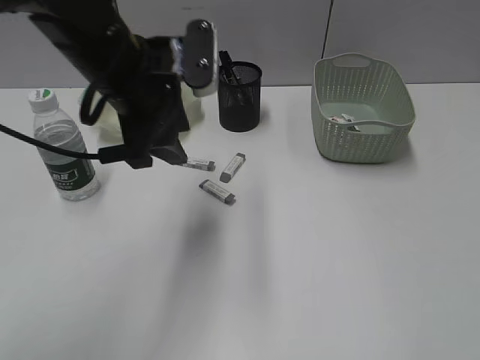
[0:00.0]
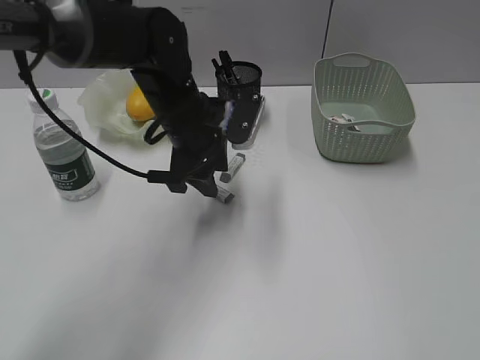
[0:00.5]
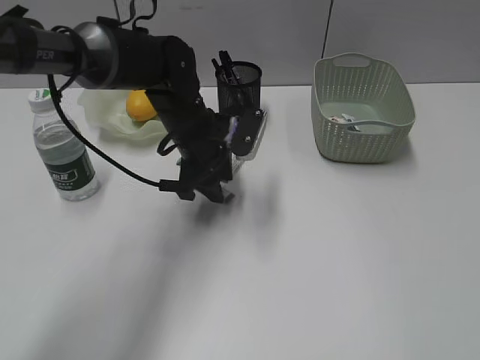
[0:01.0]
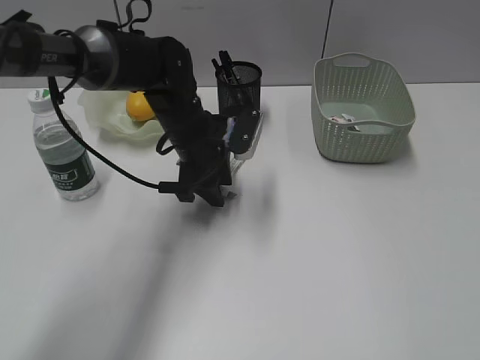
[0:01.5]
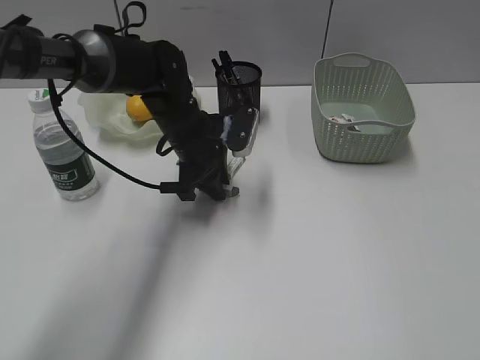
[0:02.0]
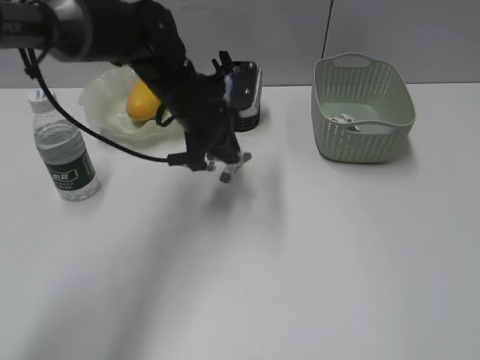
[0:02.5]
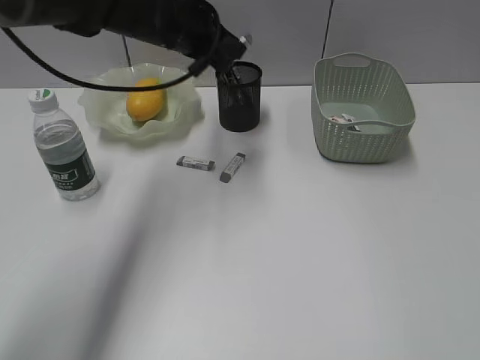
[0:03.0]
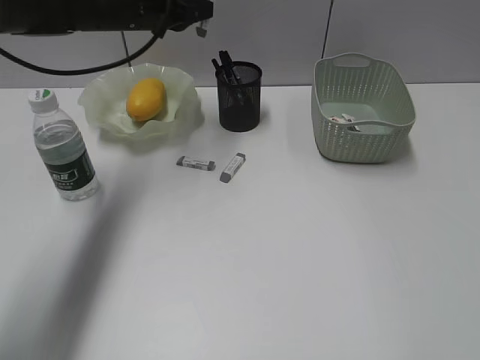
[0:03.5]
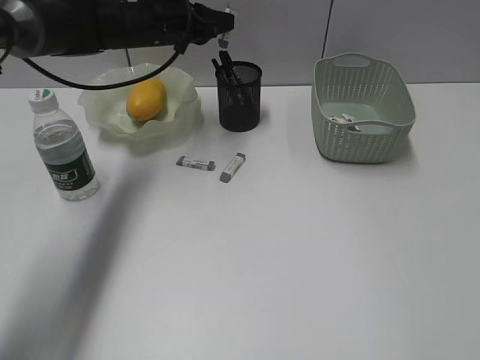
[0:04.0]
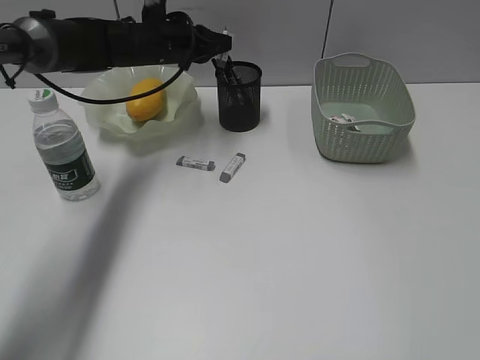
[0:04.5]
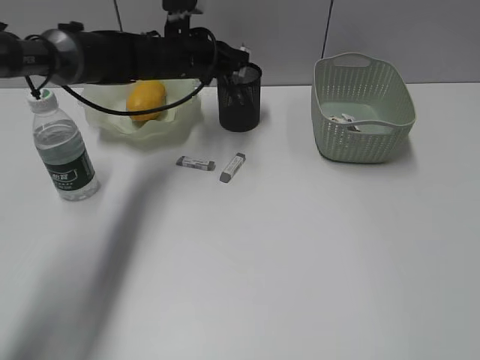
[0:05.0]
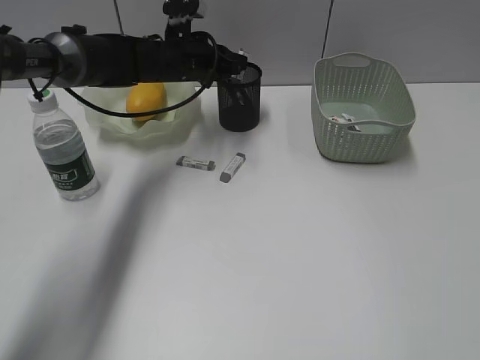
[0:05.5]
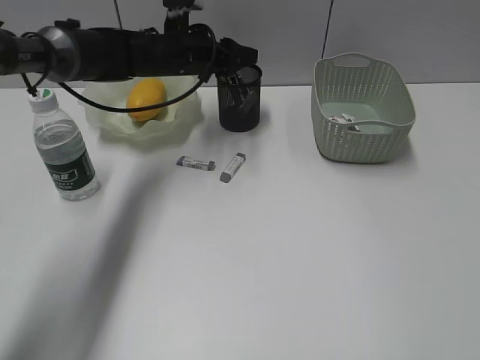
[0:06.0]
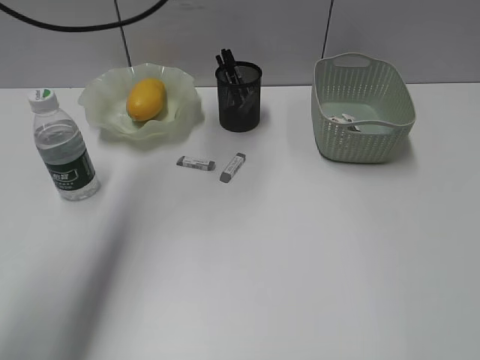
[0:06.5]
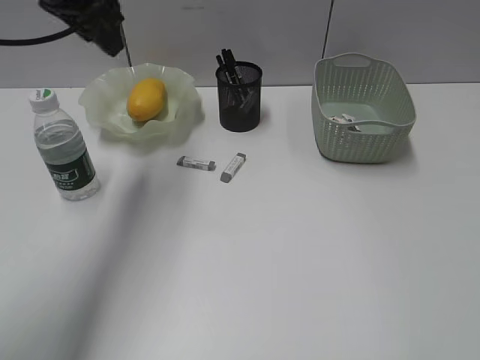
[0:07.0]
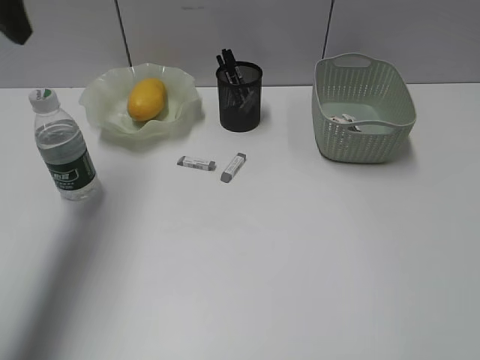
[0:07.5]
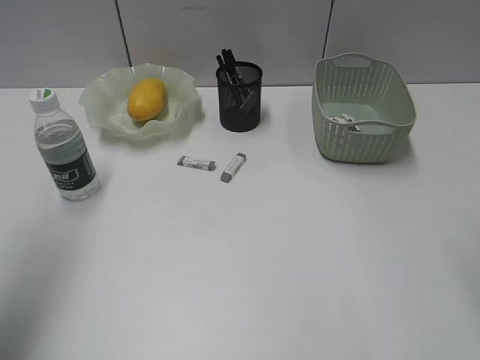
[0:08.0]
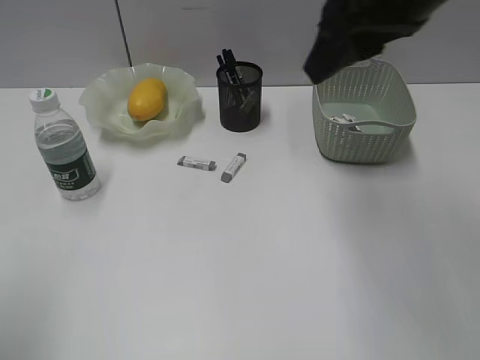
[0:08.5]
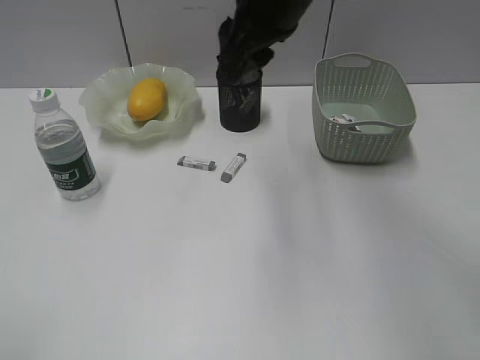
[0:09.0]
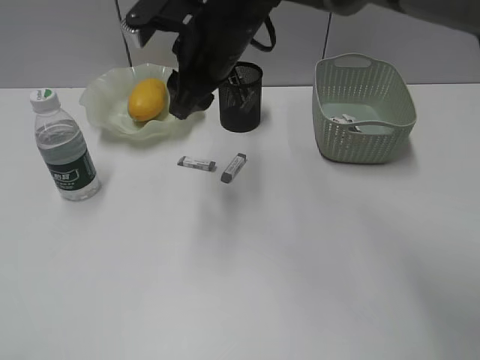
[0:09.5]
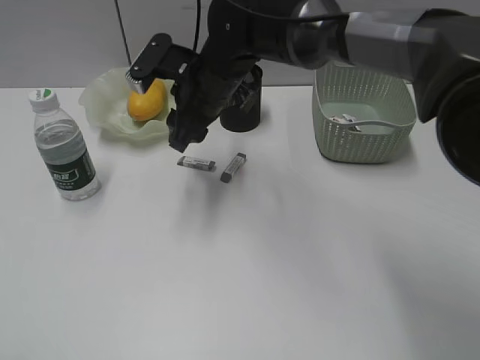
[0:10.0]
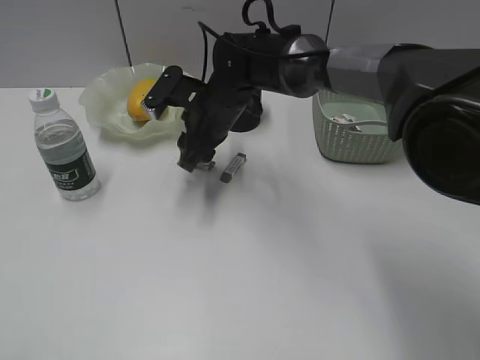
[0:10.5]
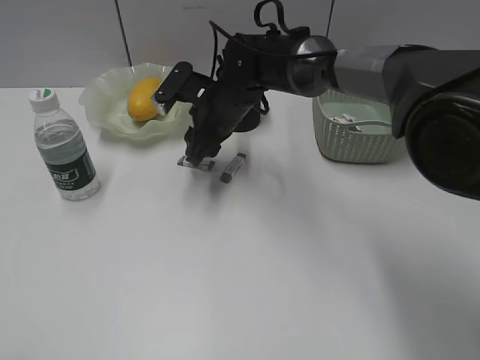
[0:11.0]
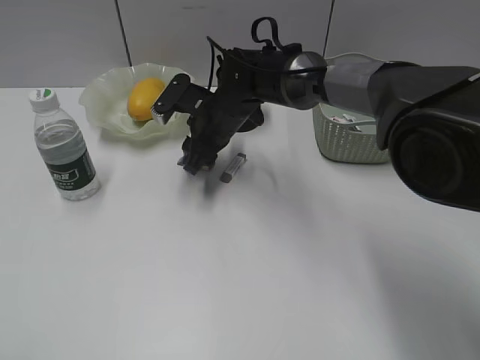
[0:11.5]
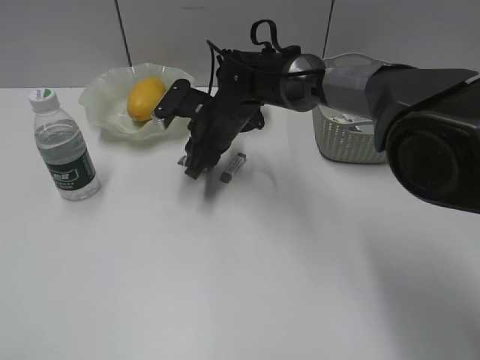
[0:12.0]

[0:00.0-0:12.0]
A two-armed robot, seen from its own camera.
Step, 0:00.0 to 0:02.0: Grasp the eraser with left gripper.
Step, 0:02.5 to 0:06.0: Place the eraser in pen holder with left gripper.
0:00.0 to 0:02.0: The left gripper shifts some 15 cm downward and forward, and closes.
0:02.0 to 0:04.0: The left gripper goes about 15 cm forward, upward and to the left.
0:04.0 to 0:06.0: The left gripper opens up.
0:06.0 to 0:08.0: The right gripper travels forward by about 15 cm. The left gripper moves backward, to the left and upward, about 40 cm.
0:08.0 to 0:10.0: The right gripper goes some 40 cm to the left, forward and downward, while the left gripper heads backward, covering about 20 cm.
0:10.0 to 0:12.0: The right gripper goes roughly 5 cm downward, and closes.

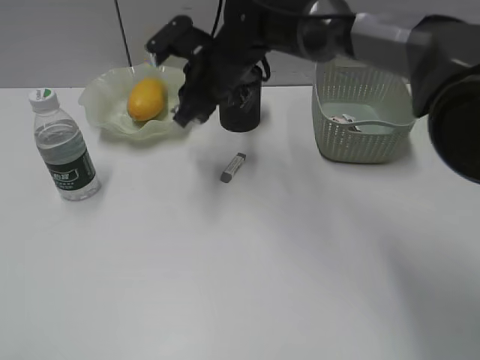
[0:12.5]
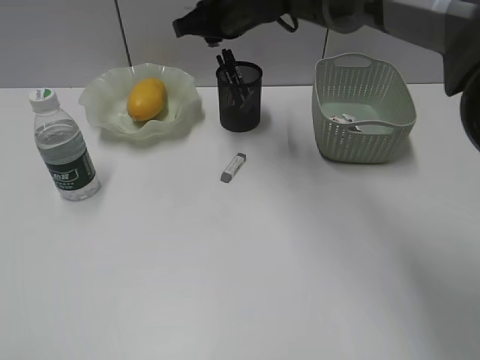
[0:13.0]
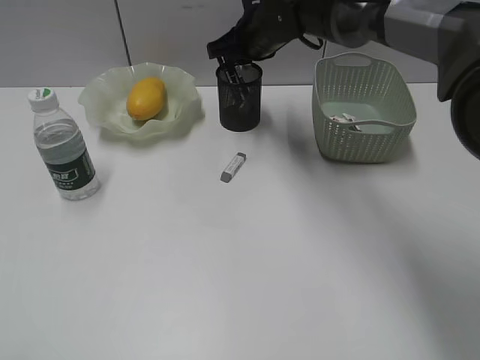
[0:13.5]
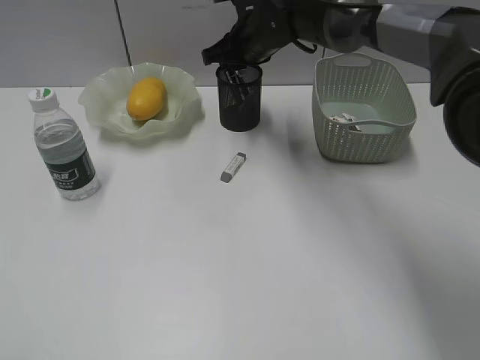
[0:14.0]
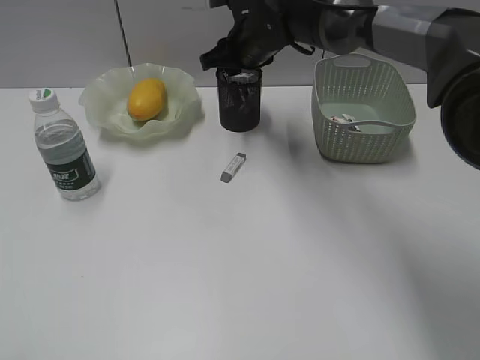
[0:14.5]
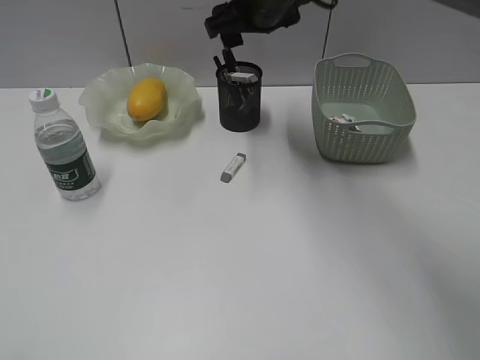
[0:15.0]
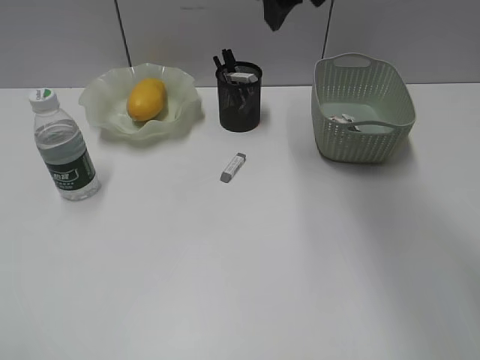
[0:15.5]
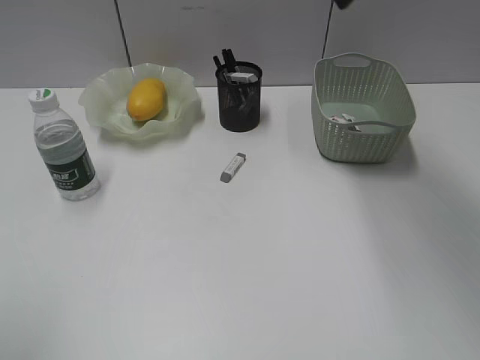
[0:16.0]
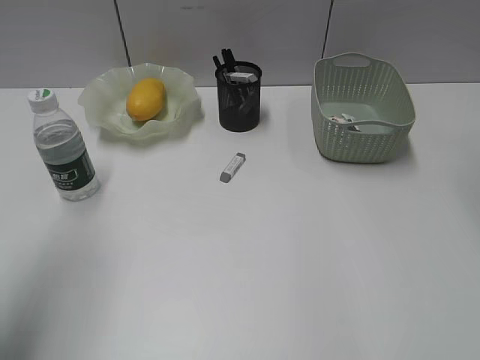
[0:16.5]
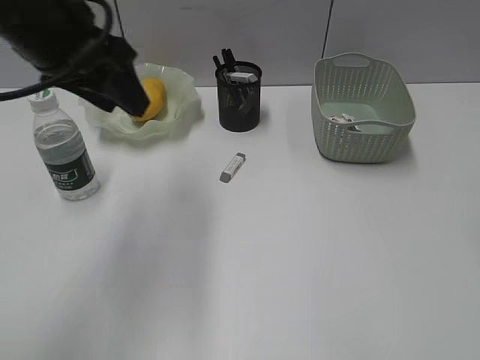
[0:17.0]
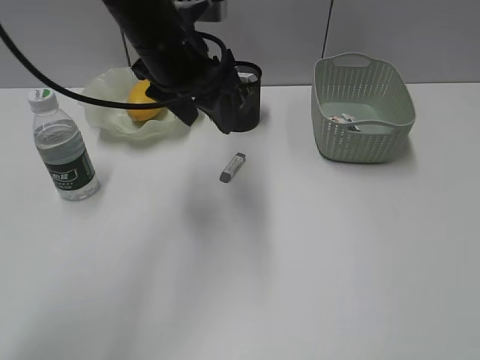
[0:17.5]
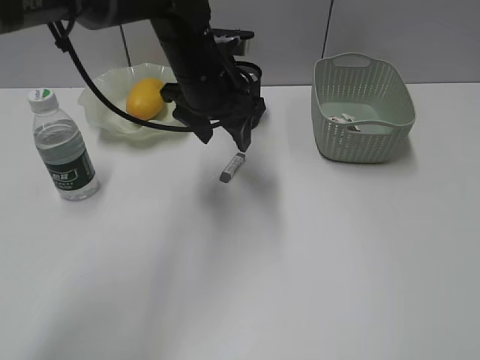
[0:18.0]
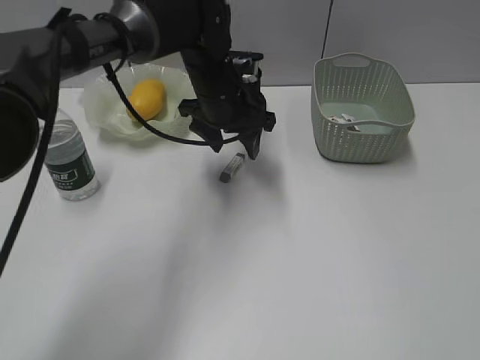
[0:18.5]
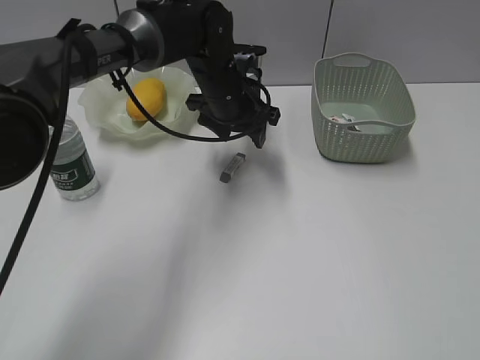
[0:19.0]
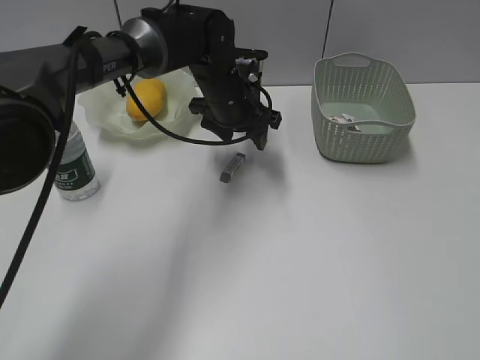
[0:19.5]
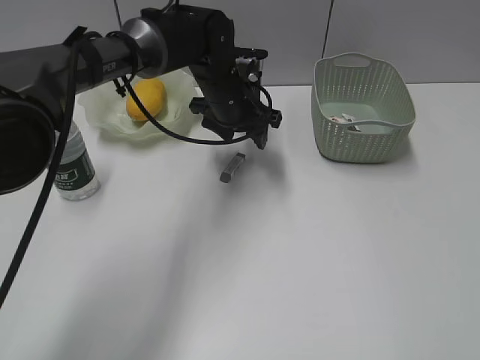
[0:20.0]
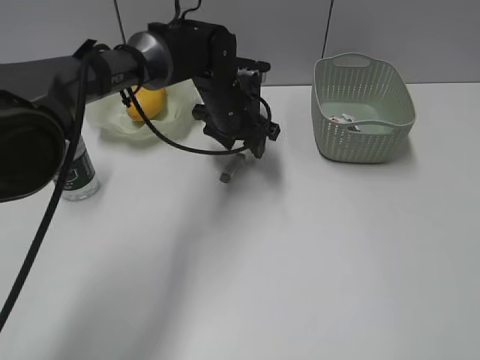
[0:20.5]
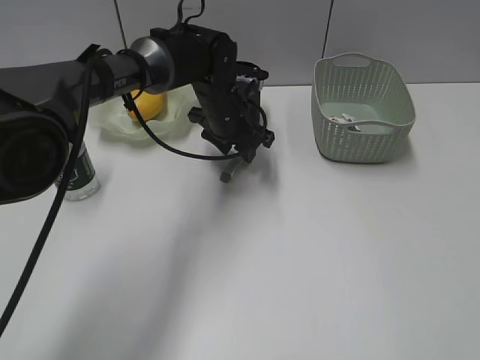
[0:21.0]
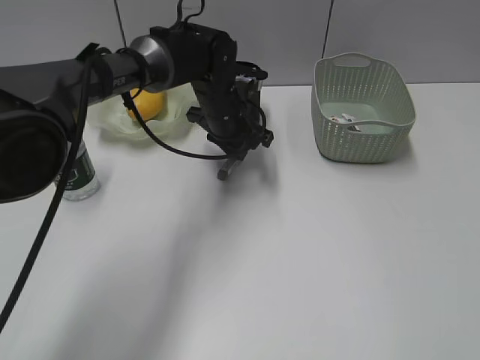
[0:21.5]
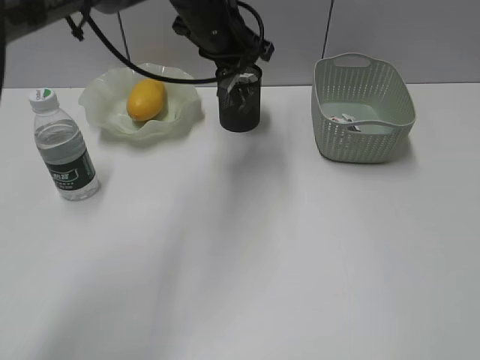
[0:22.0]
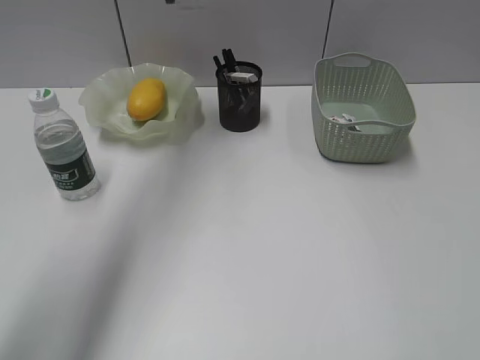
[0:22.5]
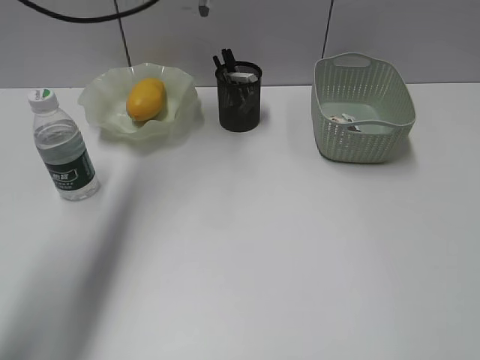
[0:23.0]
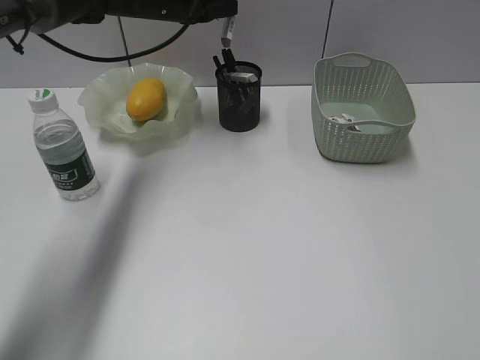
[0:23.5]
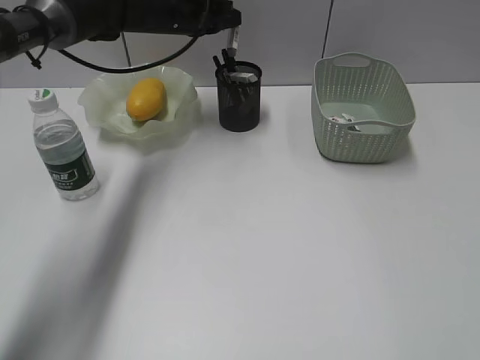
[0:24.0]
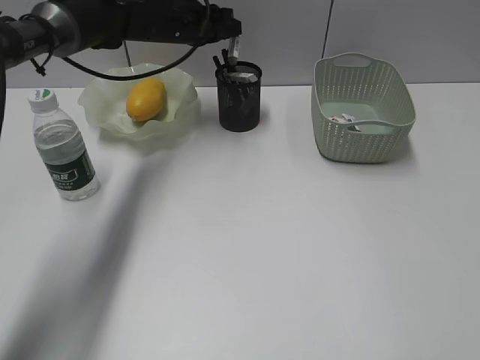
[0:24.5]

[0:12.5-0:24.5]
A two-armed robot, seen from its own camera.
Step, 0:12.5 to 0:14.5: Place the eraser in pen holder with right gripper.
Step, 0:15.0 to 0:21.0: Grasp the eraser with left gripper.
0:12.5 to 0:14.5: The right gripper ends up roughly 5 cm from where it was, and opens its fingers.
0:14.5 to 0:16.5: The left gripper shifts roughly 20 cm forward. Meanwhile the right gripper moves to the right, upward and backward, approximately 35 cm, and opens its fingers.
0:16.5 to 0:18.5: The left gripper goes some 40 cm to the right, forward and downward, and opens, while the right gripper goes roughly 30 cm backward.
0:18.5 to 0:20.5: There are only small adjustments of the grippers.
0:20.5 to 0:22.5: The left gripper travels upward and to the left by roughly 25 cm, and closes.
0:22.5 to 0:24.5: The left gripper travels downward by roughly 15 cm.

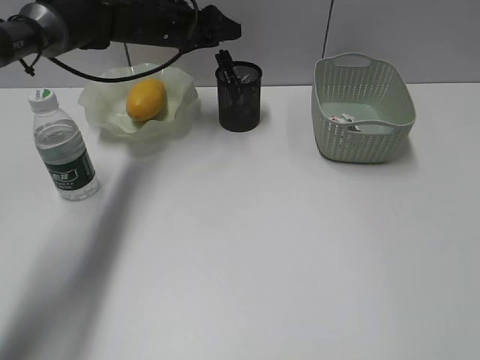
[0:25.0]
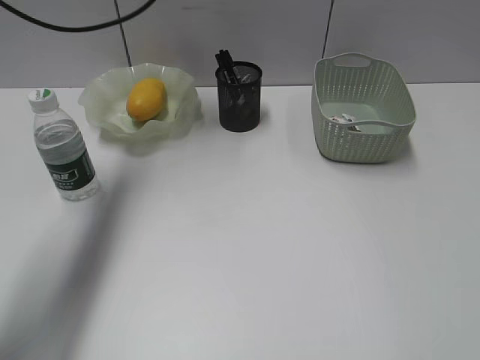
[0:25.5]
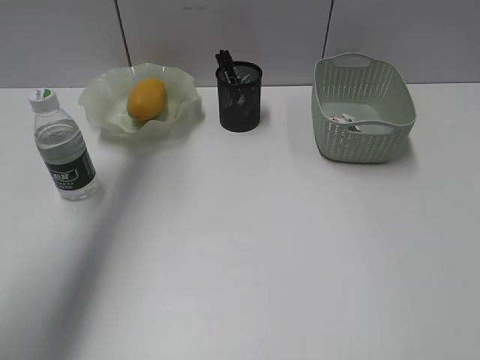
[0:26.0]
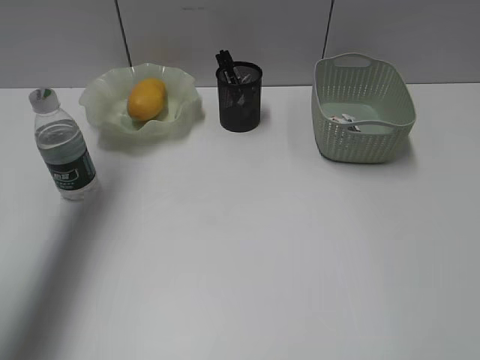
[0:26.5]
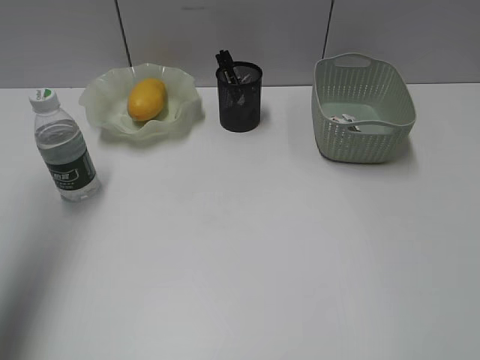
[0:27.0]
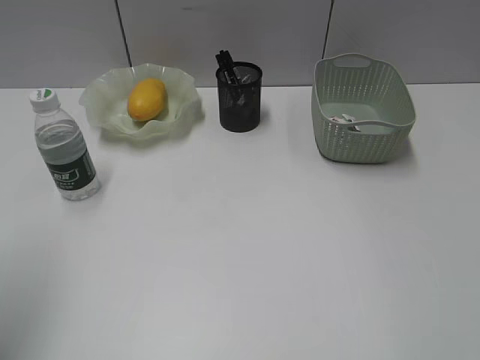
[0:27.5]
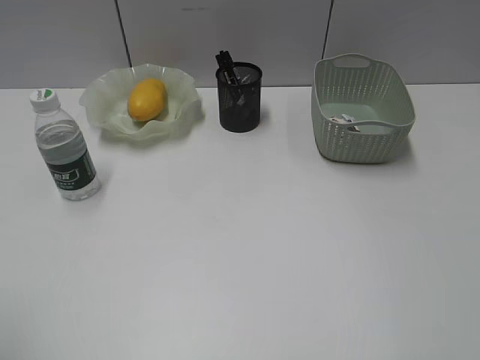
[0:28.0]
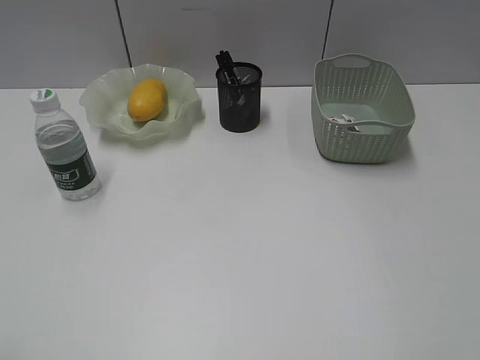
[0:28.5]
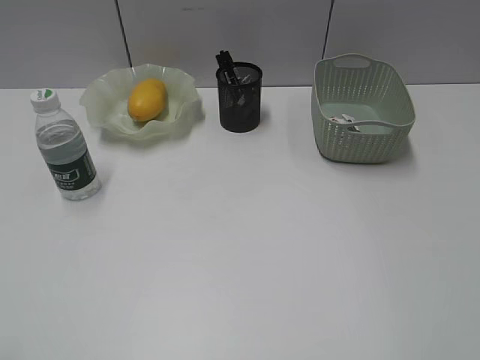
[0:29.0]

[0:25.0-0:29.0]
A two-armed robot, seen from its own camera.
0:25.0 to 0:27.0: The left gripper moves backward, to the left and upward, about 40 cm.
0:27.0 to 0:29.0: The left gripper travels backward by roughly 30 cm.
